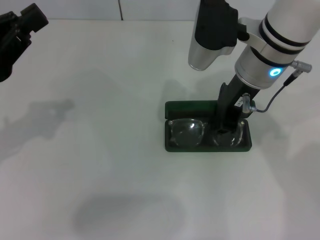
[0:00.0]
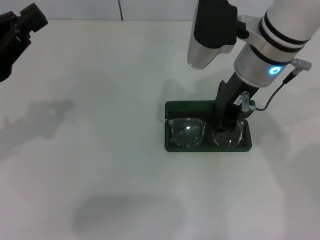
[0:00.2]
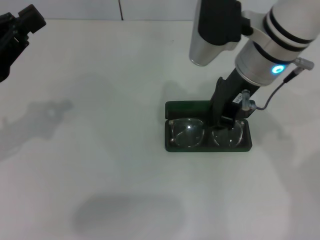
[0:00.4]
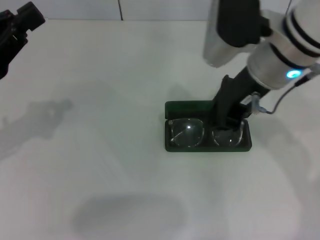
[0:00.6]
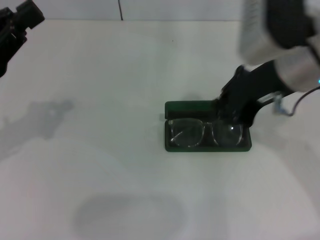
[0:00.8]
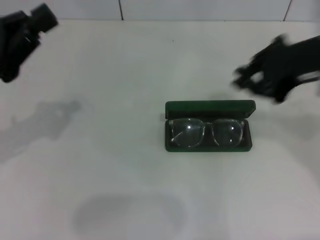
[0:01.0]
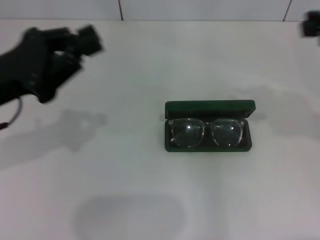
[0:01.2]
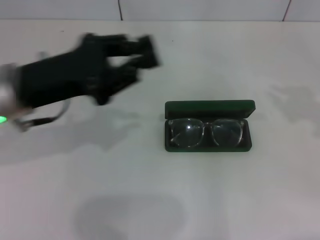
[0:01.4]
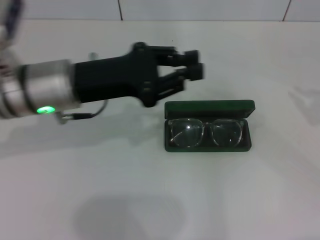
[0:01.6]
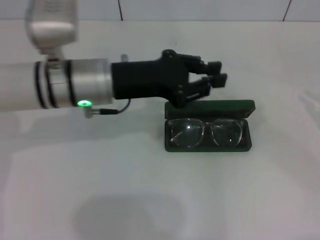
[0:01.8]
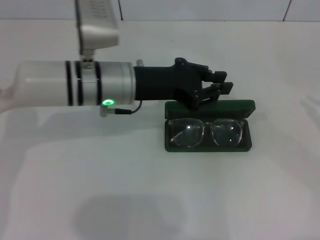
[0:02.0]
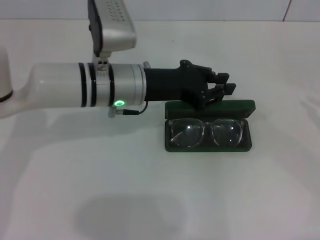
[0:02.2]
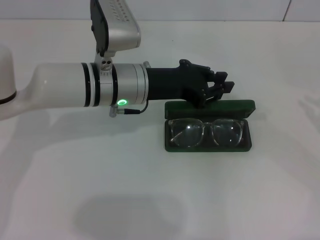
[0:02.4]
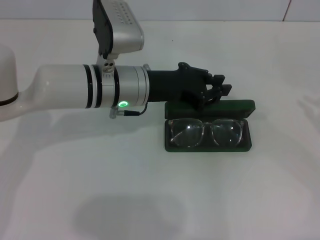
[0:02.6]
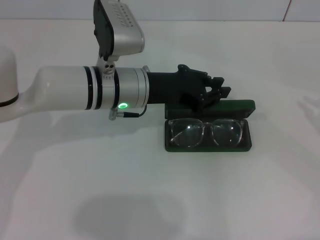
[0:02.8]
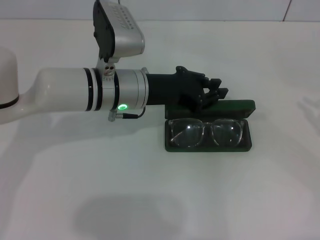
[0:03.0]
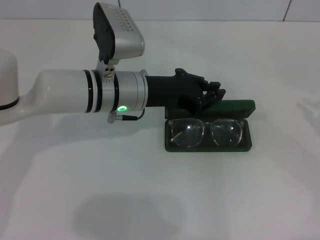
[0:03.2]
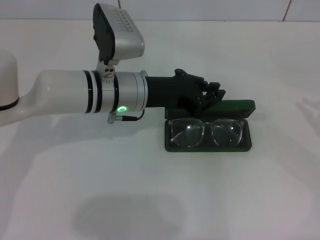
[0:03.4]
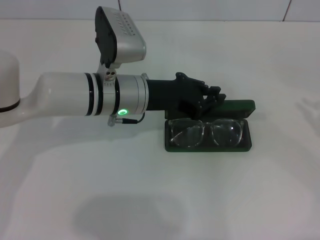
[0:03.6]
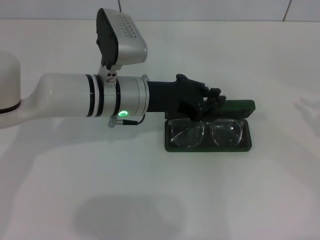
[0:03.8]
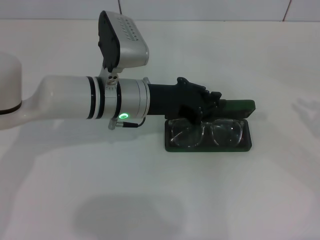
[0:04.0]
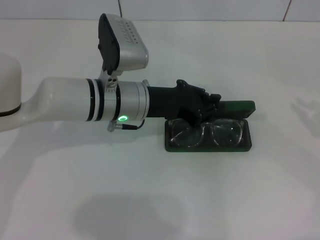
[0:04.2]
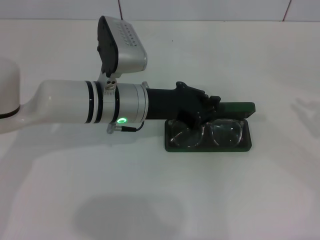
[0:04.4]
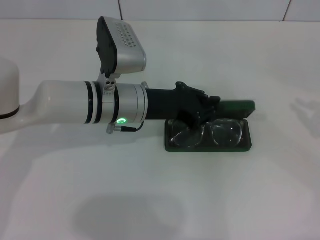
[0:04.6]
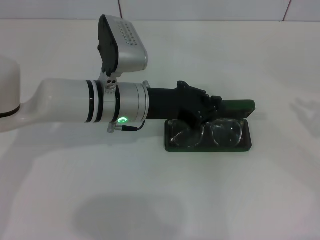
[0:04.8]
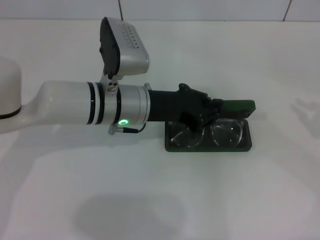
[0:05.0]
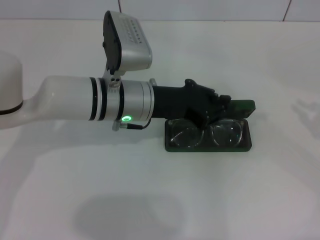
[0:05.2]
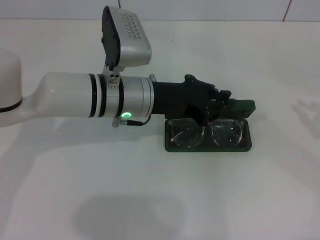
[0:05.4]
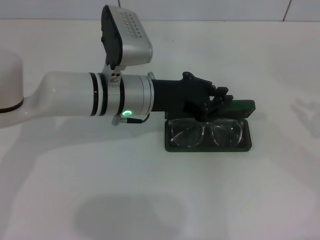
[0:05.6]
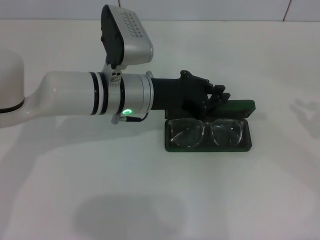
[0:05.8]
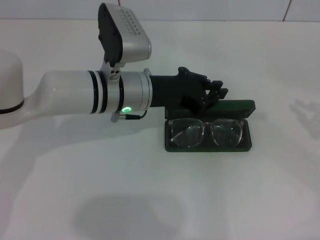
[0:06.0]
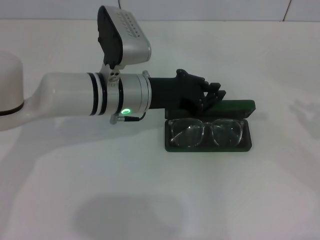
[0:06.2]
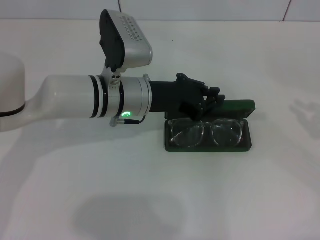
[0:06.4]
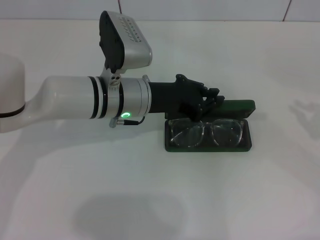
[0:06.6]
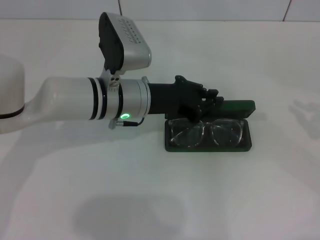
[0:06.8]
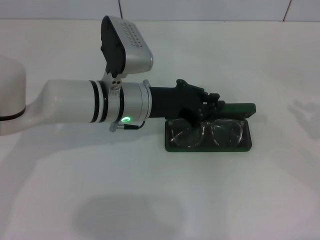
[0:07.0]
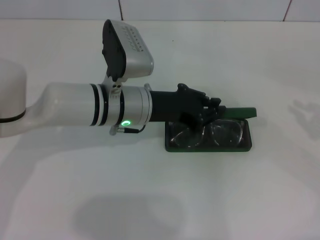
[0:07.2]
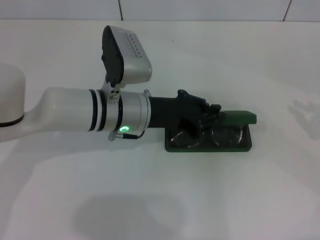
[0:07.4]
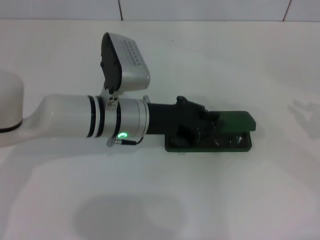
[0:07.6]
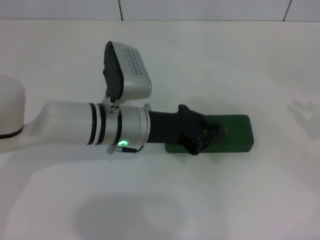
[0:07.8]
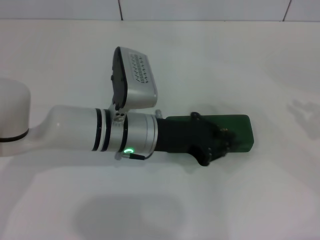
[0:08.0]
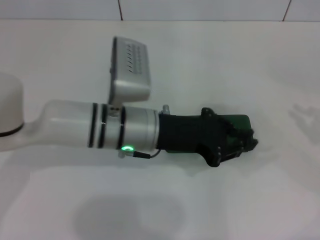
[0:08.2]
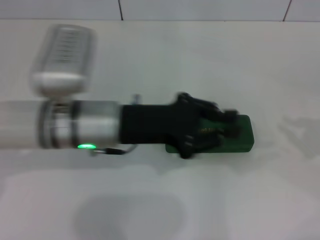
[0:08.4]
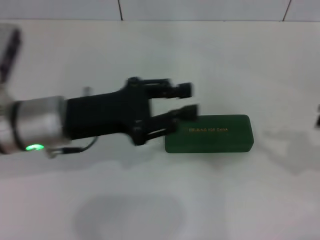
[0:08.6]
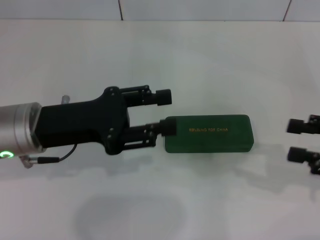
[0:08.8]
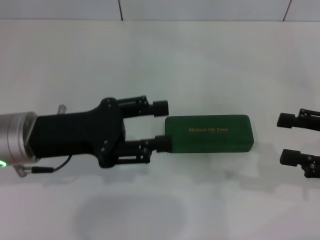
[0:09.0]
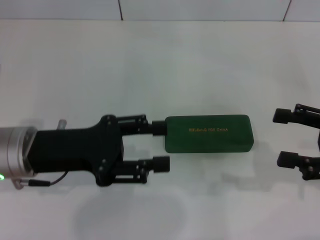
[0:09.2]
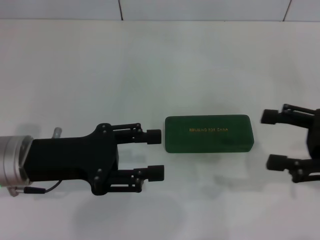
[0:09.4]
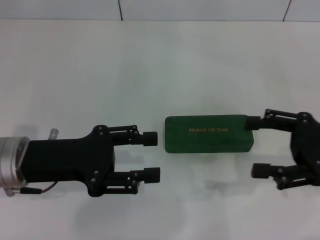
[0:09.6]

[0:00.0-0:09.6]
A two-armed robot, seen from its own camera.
Step, 0:00.2 to 0:07.8: Close the glasses case with your left hand.
0:00.0 to 0:01.6: The right gripper shifts about 35 cm to the right and backward. Meanwhile the left gripper goes about 15 cm to the right and forward.
0:01.6 to 0:03.2: The left gripper is displaced to the right by approximately 5 cm.
0:03.2 to 0:04.8: The grippers make only small movements.
0:04.8 to 0:06.4: Neither gripper changes place.
0:06.4 to 0:08.0: The grippers stay close to where they were, moving slightly.
0:08.0 to 0:09.6: Both grippers move to the left, about 15 cm. The right gripper opens up, while the left gripper opens its fingers.
